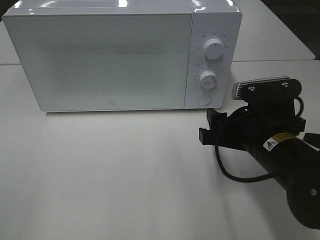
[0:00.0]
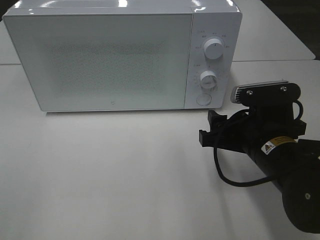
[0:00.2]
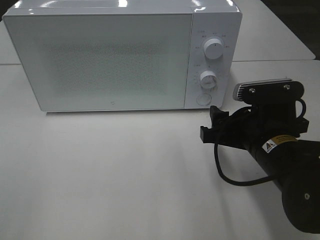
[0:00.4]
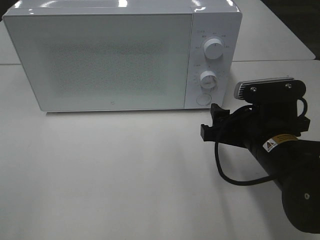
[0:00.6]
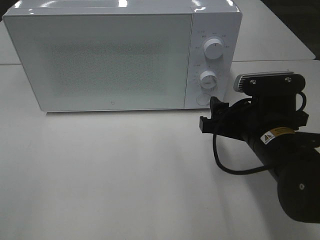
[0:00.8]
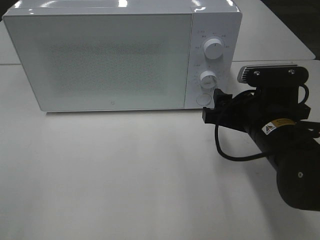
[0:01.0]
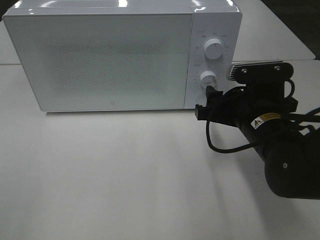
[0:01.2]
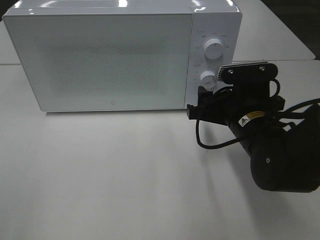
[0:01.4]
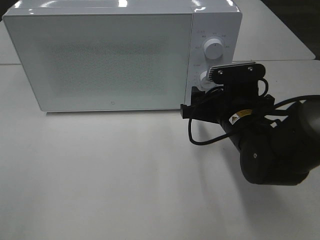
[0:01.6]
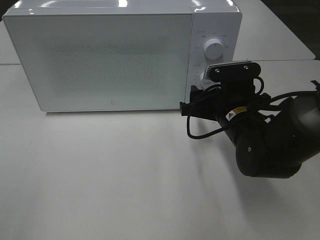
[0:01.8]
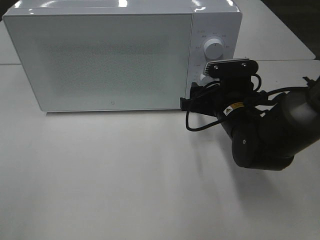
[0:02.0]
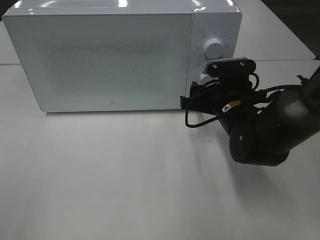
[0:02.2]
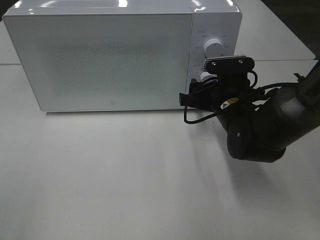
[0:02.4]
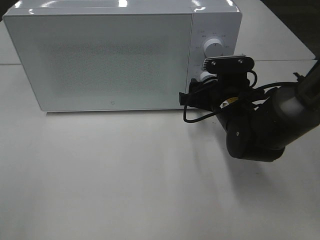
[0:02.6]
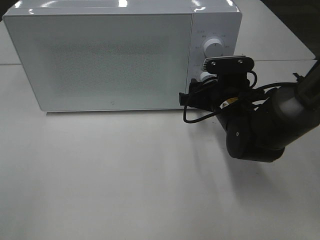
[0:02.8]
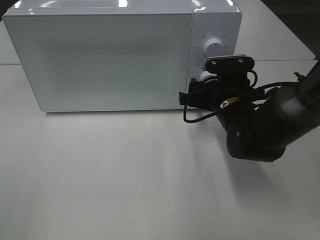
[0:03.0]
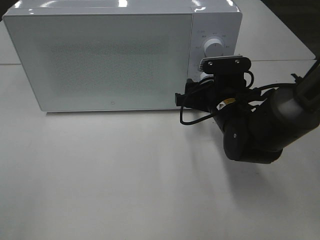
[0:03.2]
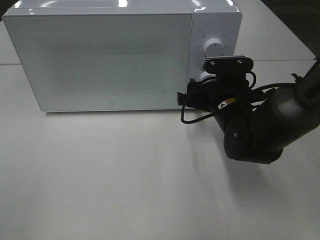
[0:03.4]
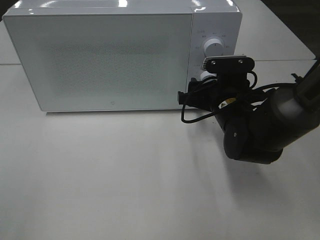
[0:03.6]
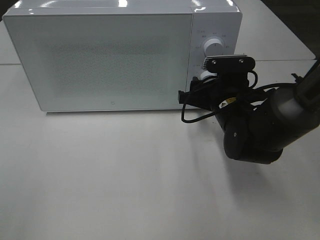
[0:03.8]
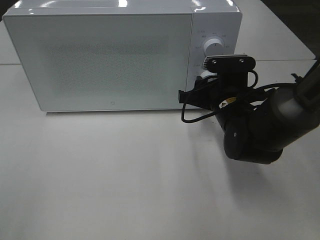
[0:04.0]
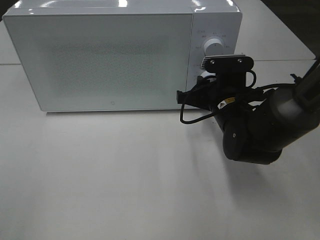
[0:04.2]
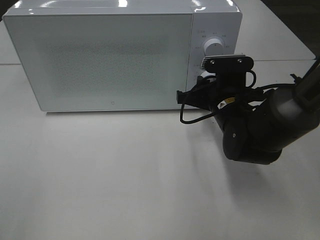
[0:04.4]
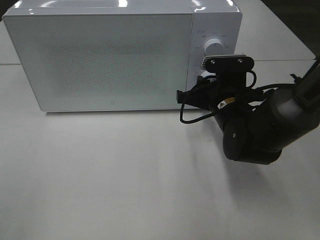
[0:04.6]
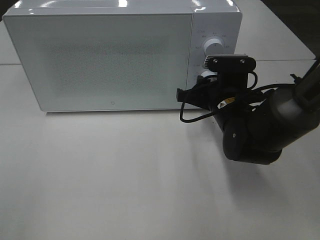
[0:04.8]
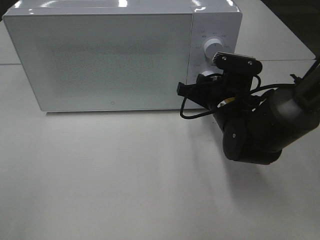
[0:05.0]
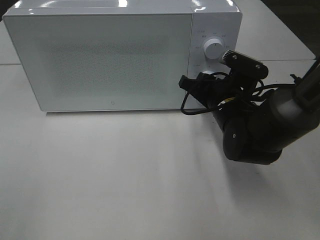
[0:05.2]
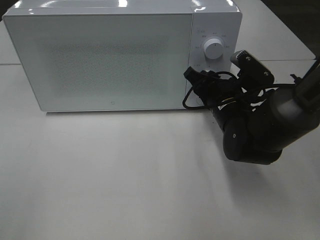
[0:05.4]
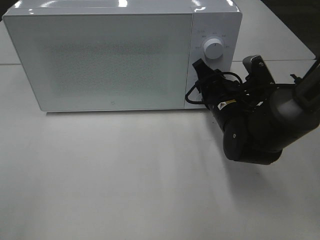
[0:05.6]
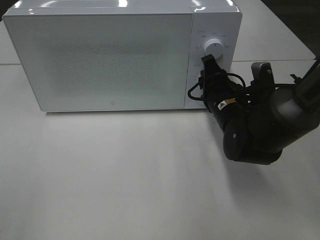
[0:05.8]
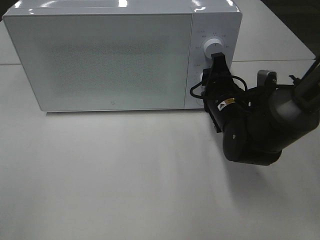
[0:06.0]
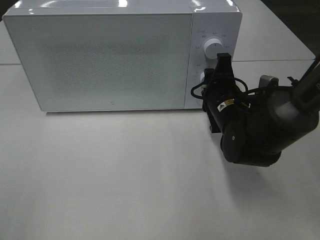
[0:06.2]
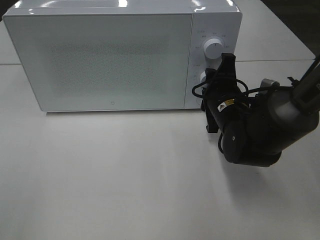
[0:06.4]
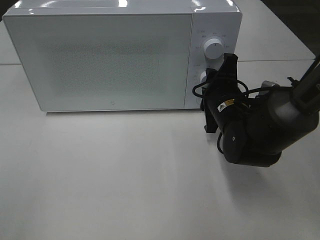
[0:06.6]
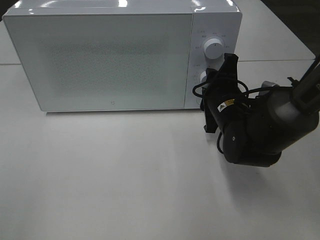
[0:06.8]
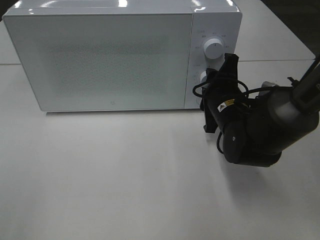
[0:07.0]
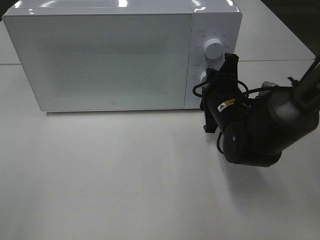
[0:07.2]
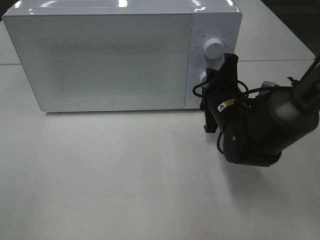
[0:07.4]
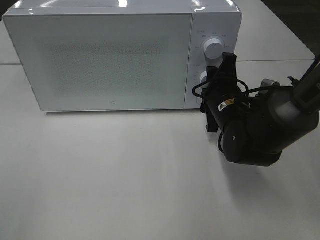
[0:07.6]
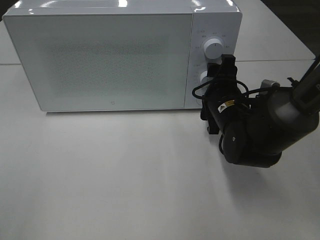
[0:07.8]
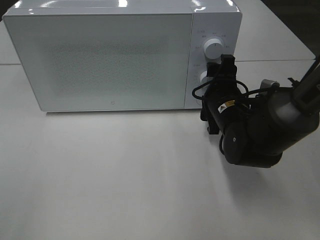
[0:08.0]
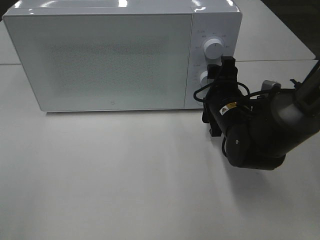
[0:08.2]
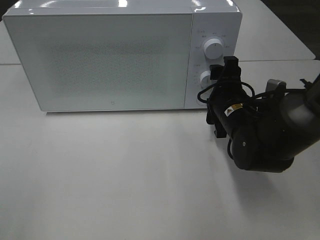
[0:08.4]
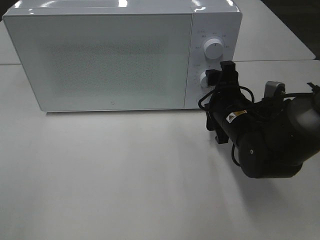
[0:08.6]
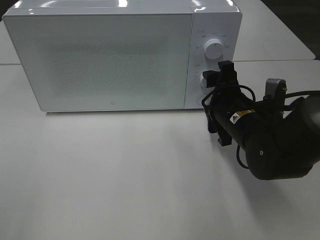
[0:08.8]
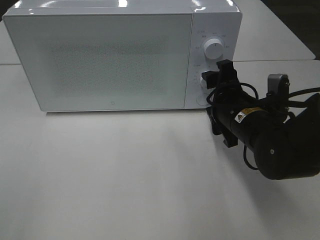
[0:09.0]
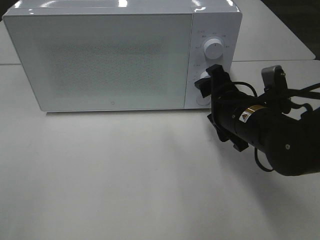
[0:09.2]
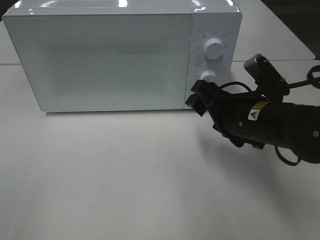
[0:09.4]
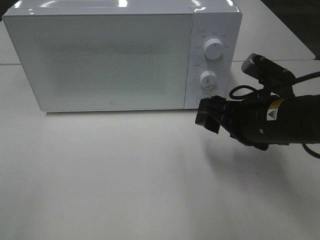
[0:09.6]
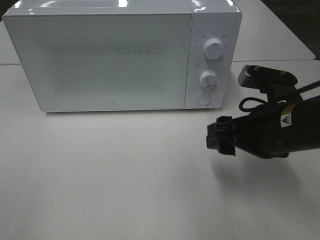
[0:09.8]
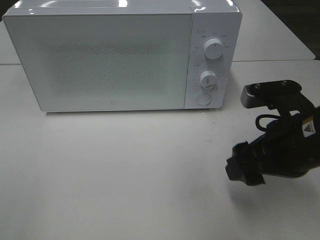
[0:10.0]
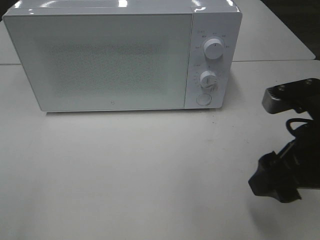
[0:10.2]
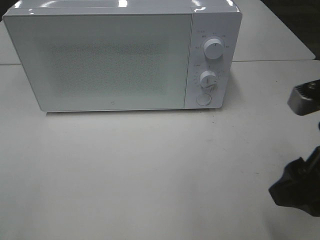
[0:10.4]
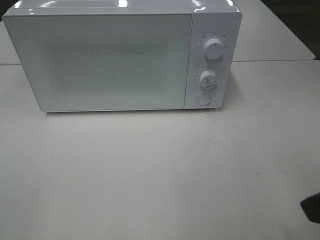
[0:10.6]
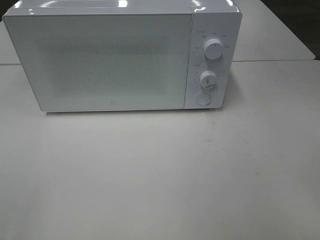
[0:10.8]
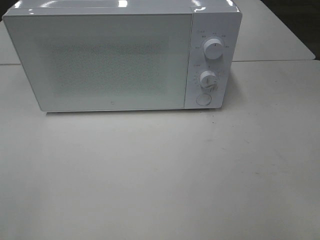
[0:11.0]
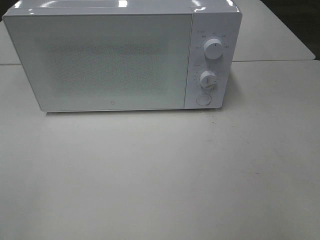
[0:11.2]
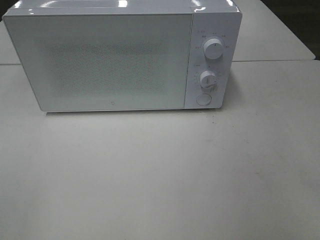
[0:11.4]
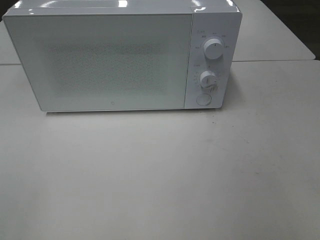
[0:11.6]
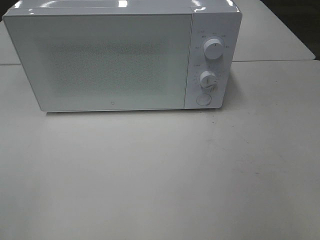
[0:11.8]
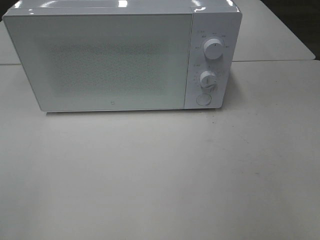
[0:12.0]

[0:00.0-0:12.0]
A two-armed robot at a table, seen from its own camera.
Task of the whole recording: Heat Sandwich.
Step, 0:00.0 to 0:08.8: Right hand: twist timer button.
0:00.0 to 0:01.6: The right gripper is displaced forward by roughly 5 cm.
0:01.6 to 0:03.0: The grippers make only small movements.
0:03.0 to 0:04.4: Both grippers stay about where they are.
0:06.0 to 0:09.0: There are only small adjustments of the grippers.
0:09.0 to 0:10.4: The right gripper heads backward, upward and to the right, covering about 20 cm.
0:10.4 to 0:12.0: The right gripper goes approximately 15 cm backward and to the right.

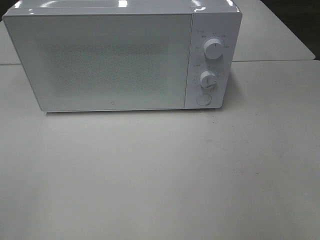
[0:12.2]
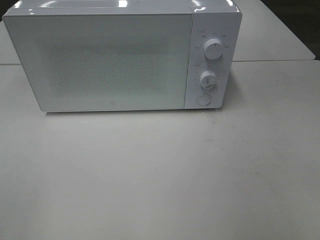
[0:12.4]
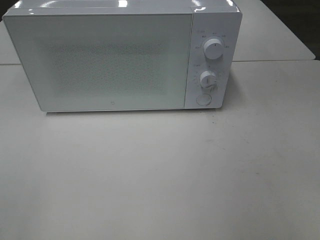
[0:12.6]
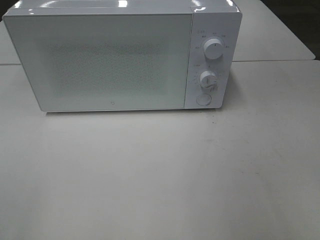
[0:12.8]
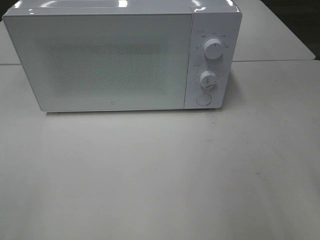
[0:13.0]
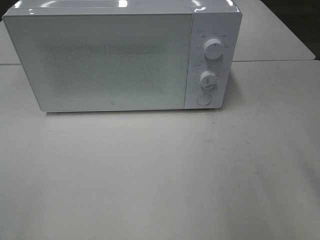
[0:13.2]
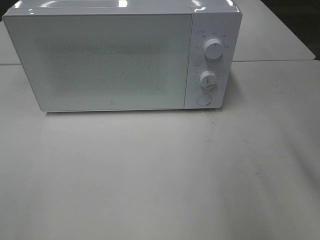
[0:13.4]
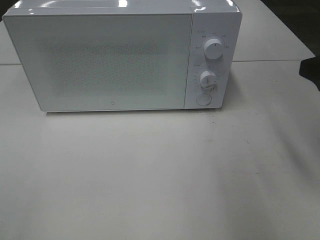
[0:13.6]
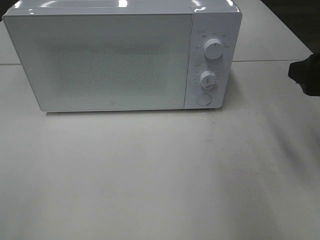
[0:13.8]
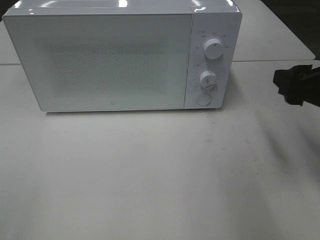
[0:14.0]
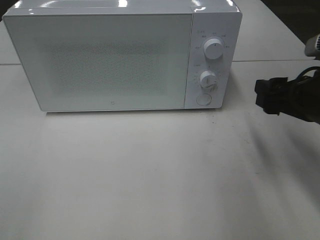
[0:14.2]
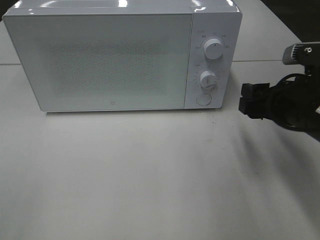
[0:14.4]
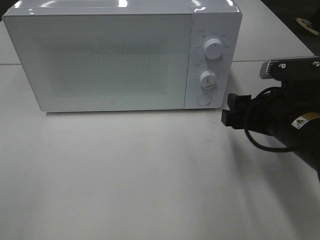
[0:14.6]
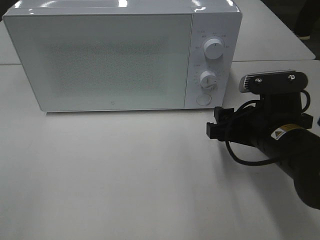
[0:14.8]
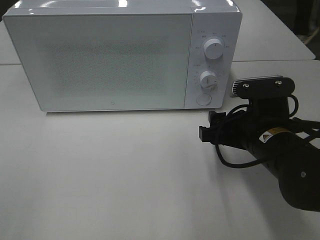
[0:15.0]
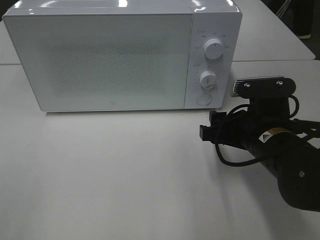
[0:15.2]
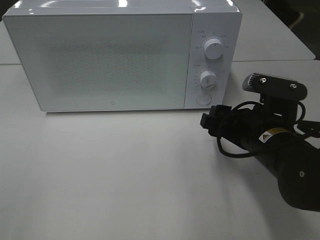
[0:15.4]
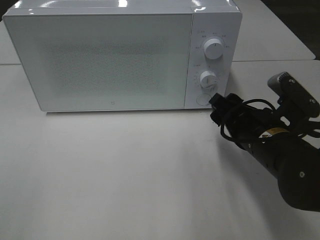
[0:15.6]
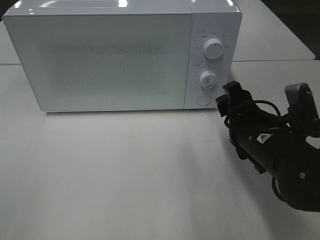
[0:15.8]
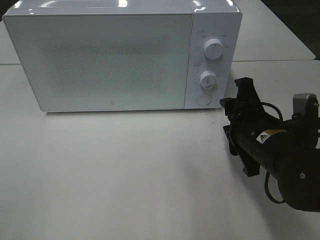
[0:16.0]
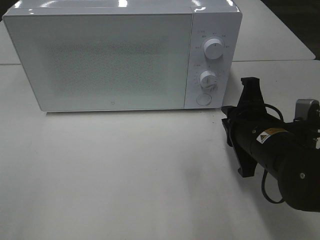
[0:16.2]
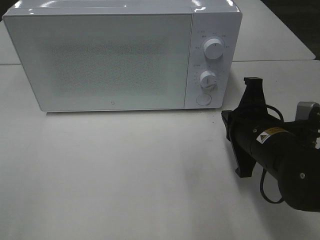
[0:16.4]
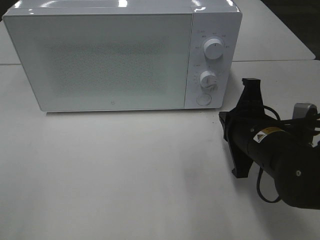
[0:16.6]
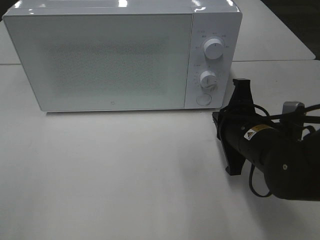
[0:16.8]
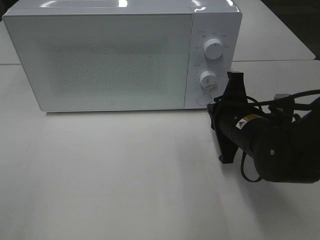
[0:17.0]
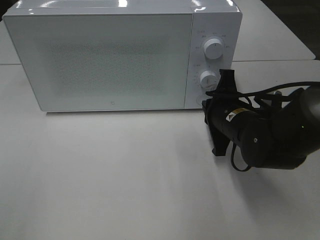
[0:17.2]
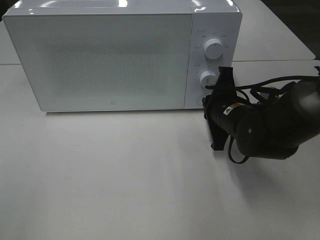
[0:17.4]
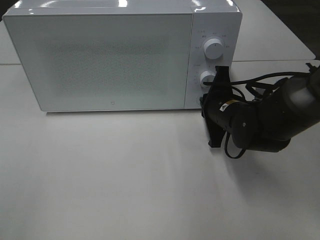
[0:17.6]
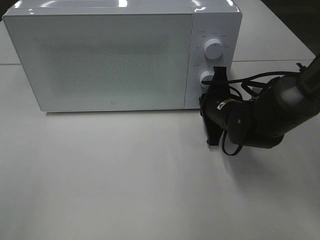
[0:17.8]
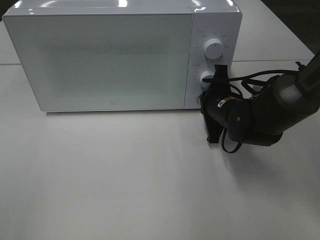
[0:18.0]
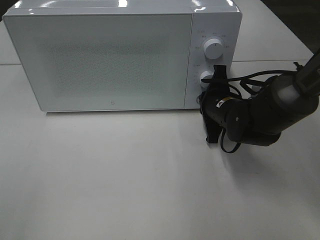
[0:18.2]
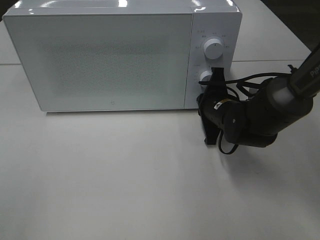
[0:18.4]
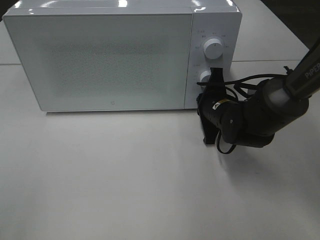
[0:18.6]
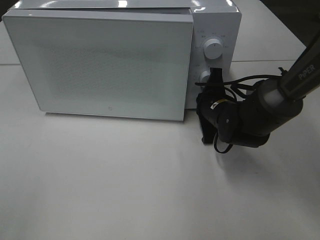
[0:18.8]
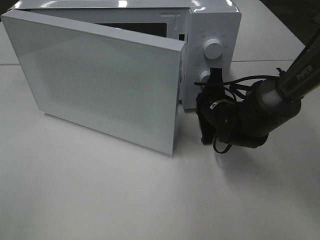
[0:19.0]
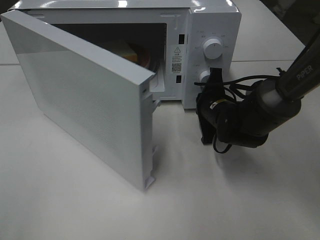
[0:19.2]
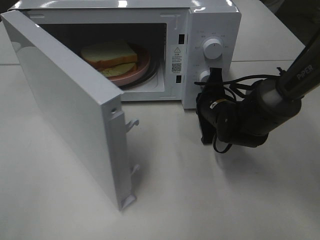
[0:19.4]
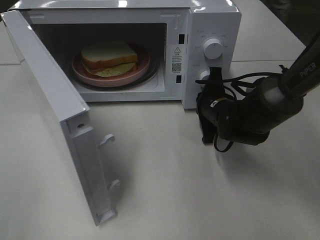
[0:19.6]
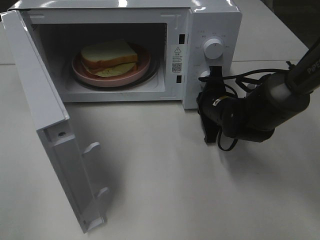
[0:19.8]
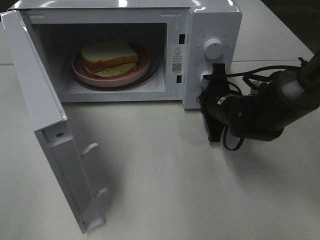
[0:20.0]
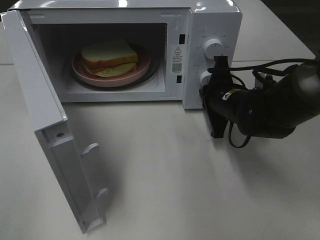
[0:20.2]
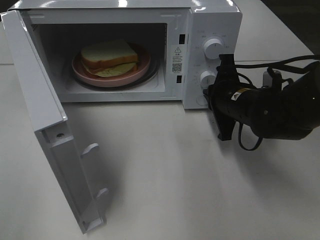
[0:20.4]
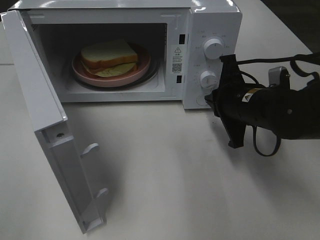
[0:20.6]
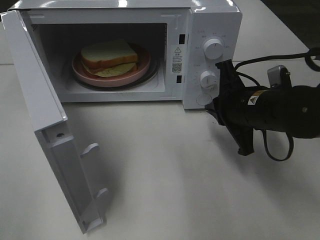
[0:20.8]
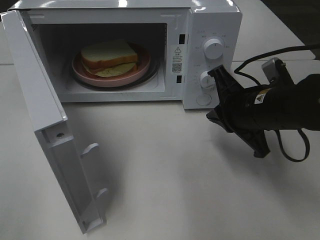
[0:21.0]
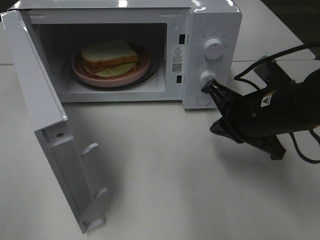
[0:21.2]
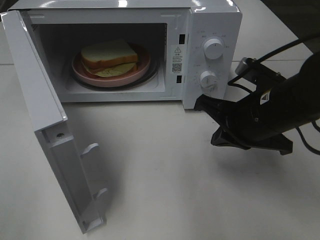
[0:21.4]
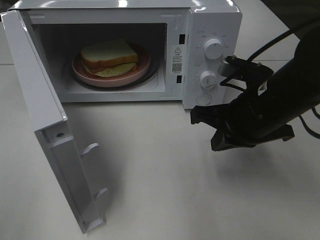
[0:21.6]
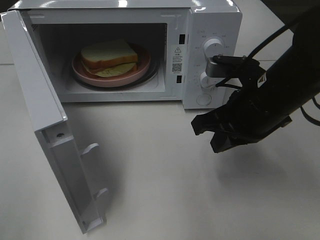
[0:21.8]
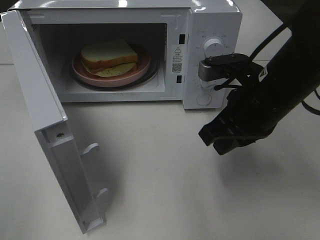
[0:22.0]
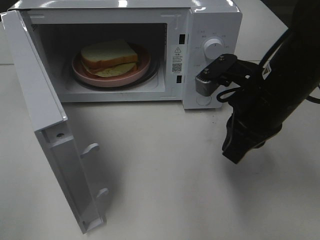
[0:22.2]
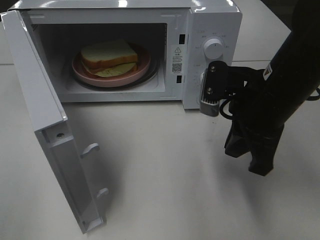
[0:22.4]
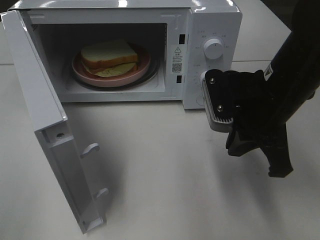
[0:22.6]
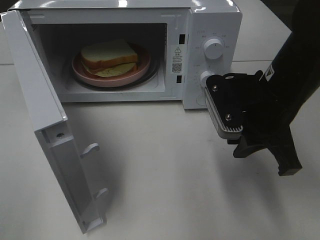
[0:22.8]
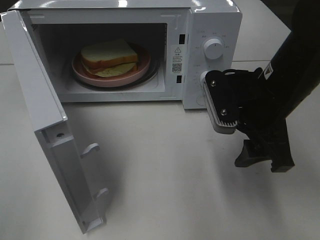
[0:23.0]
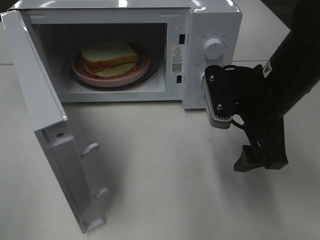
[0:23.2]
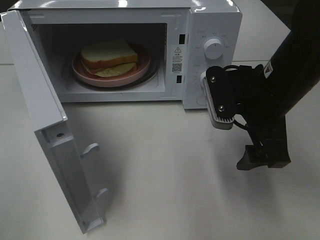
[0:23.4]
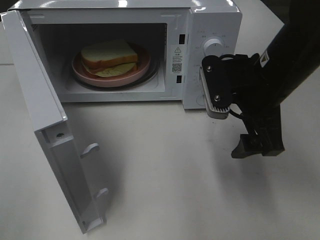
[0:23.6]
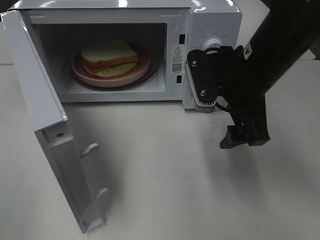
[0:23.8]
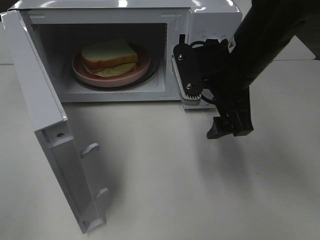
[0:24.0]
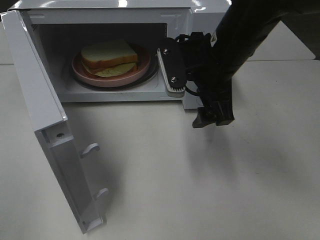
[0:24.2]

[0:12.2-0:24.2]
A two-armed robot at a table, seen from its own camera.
Task of the whole recording: Heat Sandwich.
Step, 0:12.2 to 0:20.4: Right hand: press the switch.
0:12.2 to 0:13.8: The right gripper goes roughly 20 cm forward.
0:13.8 to 0:15.2: The right gripper goes approximately 15 cm downward and to the left.
0:15.2 to 0:16.6: The right gripper closes up.
0:16.6 to 0:18.2: The right gripper is displaced forward by about 10 cm.
0:19.8 to 0:21.2: The right gripper goes some 15 cm backward and upward.
0:22.6 to 0:24.2: The right gripper is displaced forward and to the left by about 10 cm, and opens up.
